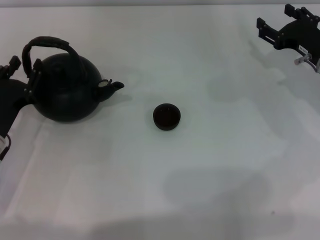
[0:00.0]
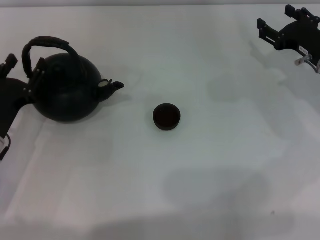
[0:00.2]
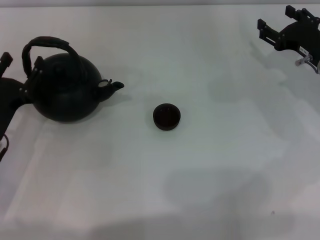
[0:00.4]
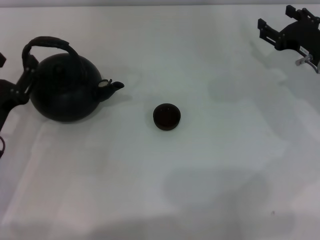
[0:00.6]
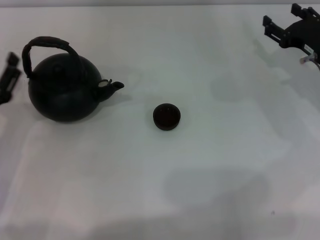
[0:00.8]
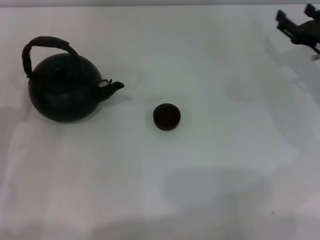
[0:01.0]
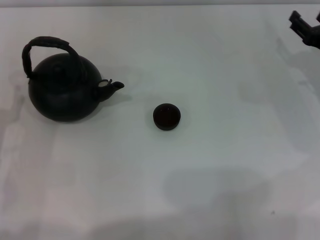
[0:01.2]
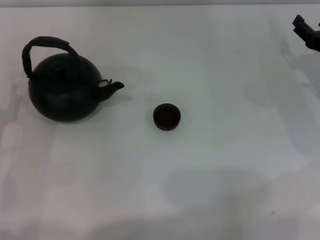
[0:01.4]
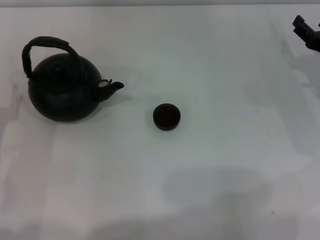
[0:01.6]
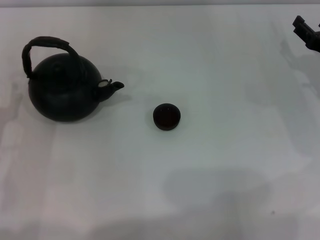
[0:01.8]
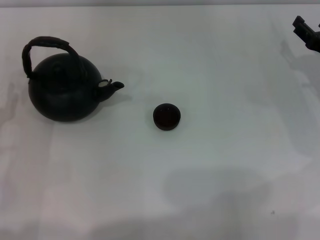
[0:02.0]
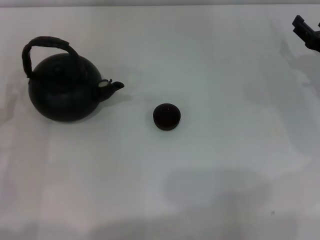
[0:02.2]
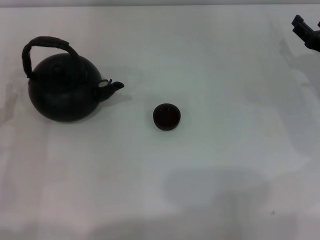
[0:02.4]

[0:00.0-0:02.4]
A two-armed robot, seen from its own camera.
Task of the whole recording: Grasp the handle of the teapot with one hand and pour tea into the teacup.
0:00.0 to 0:01.2: The left gripper changes place by about 5 cm, and opens.
0:01.2 to 0:02.4: The two grippers keep their place.
